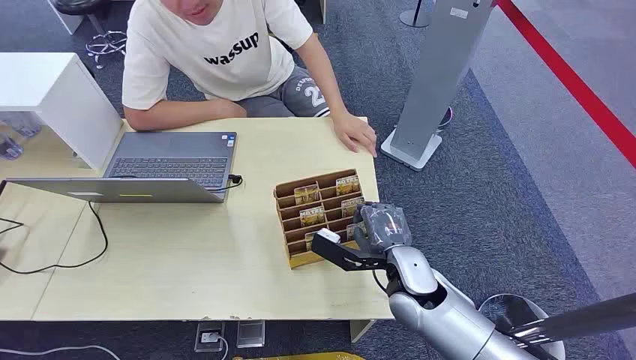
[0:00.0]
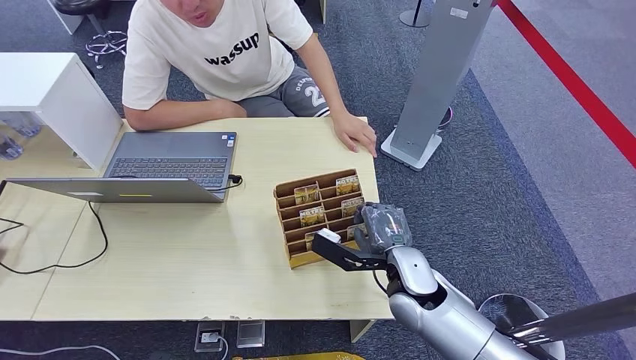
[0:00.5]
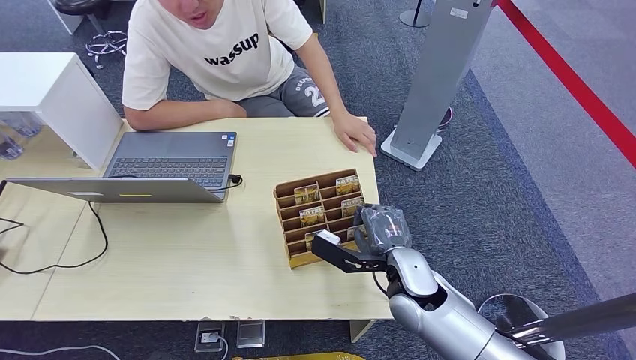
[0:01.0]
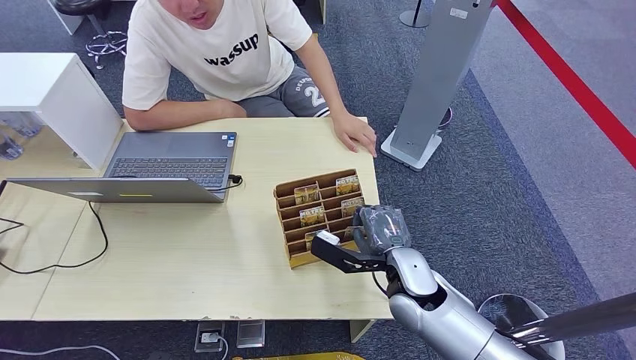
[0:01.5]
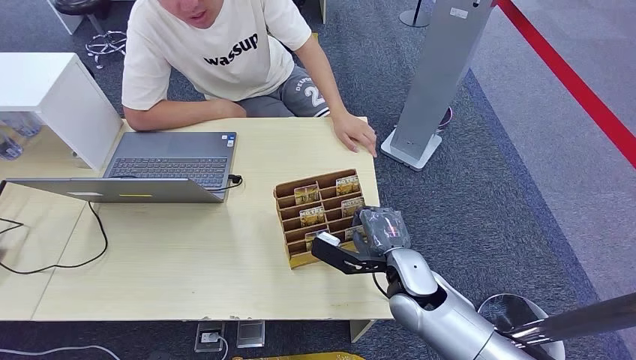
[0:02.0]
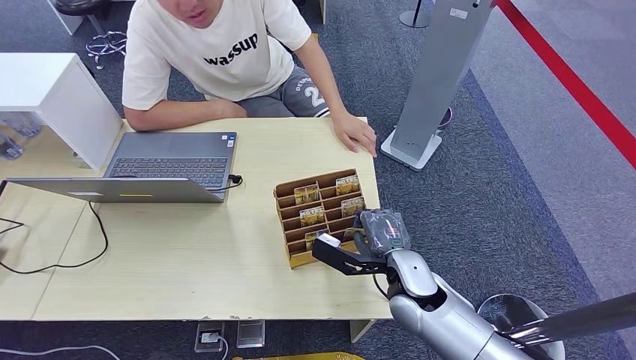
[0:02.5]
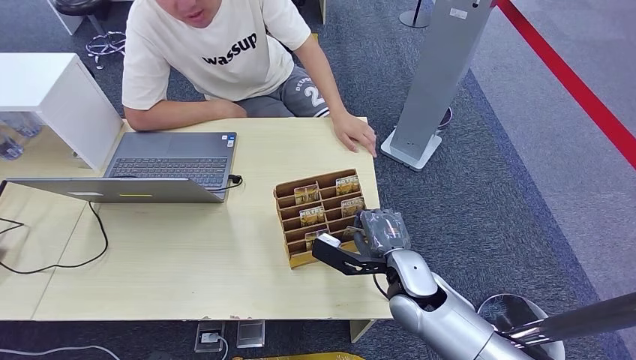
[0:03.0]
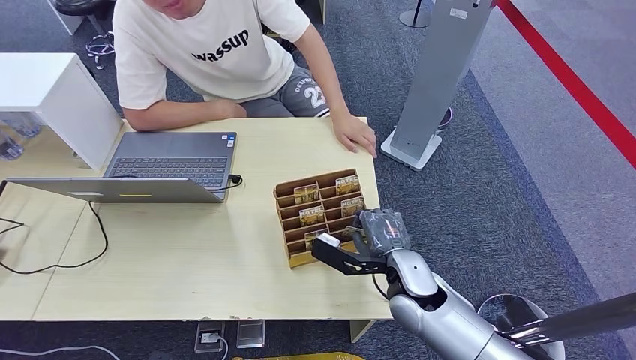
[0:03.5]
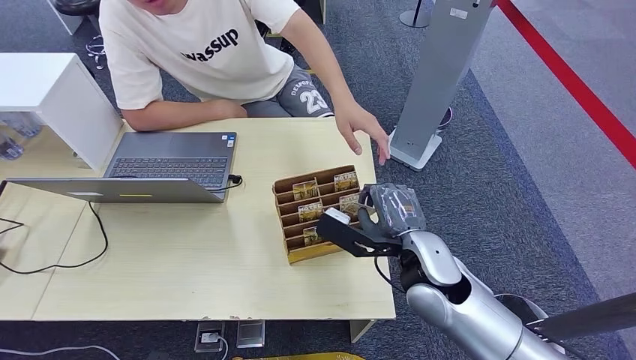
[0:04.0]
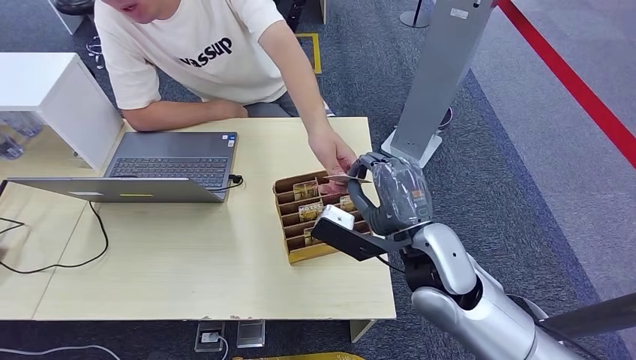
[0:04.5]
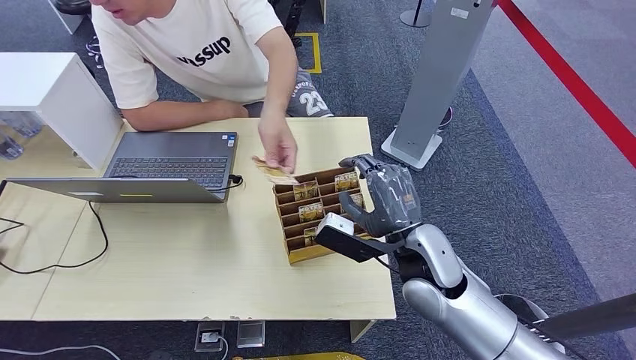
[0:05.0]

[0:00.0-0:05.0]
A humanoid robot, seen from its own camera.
Step, 0:00.0 to 0:03.5: Pick up the key card from the card box.
Step, 0:04.0 to 0:05.0: Hand the key card to the target.
